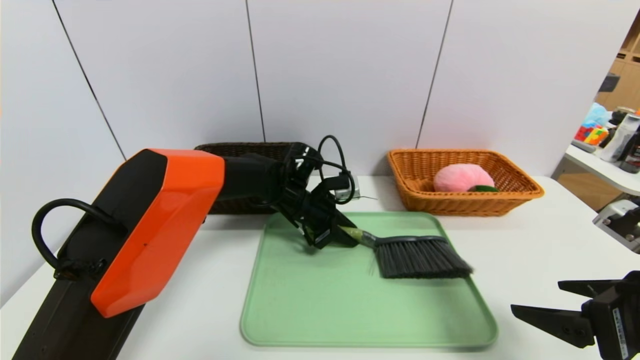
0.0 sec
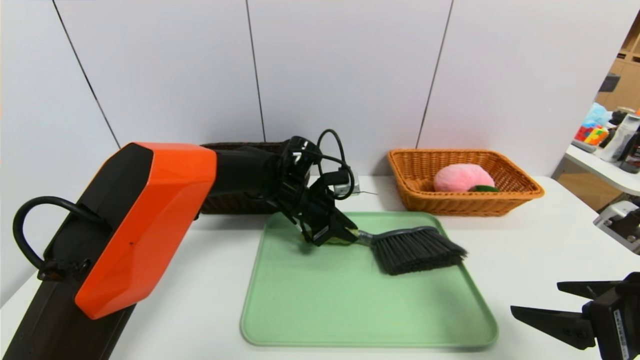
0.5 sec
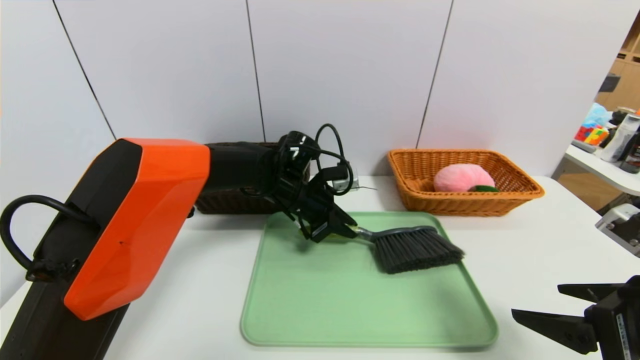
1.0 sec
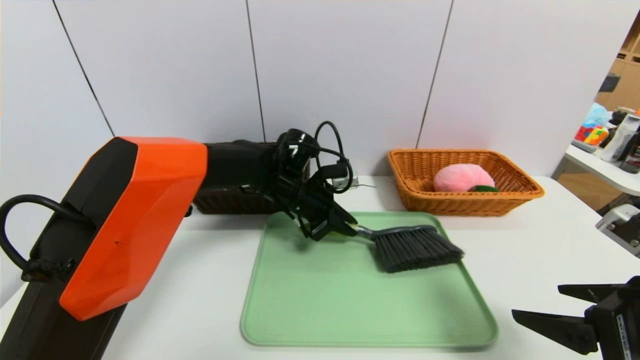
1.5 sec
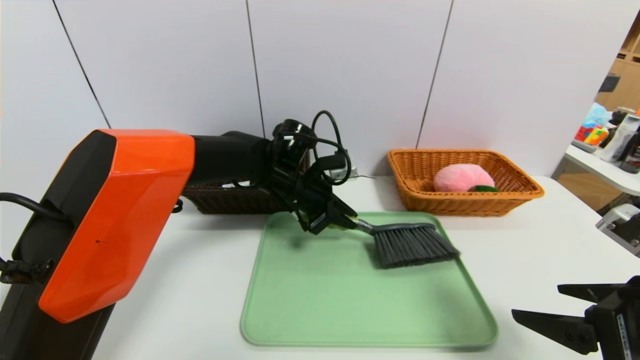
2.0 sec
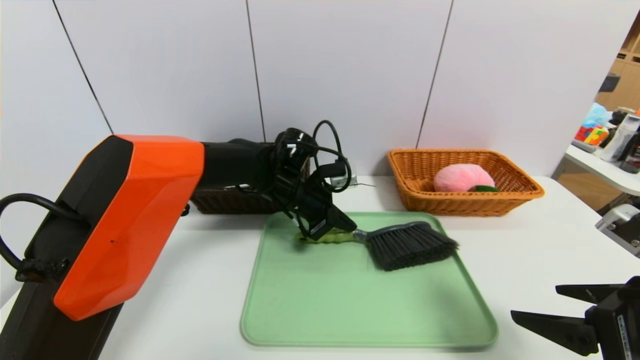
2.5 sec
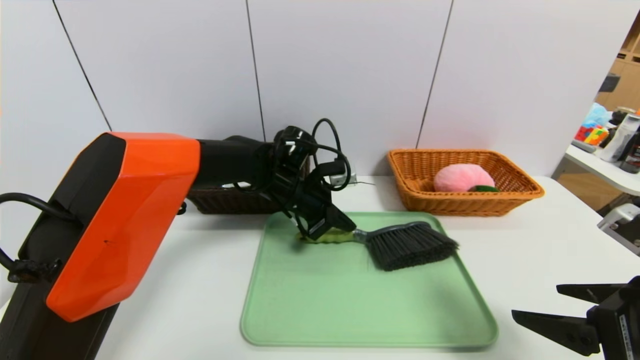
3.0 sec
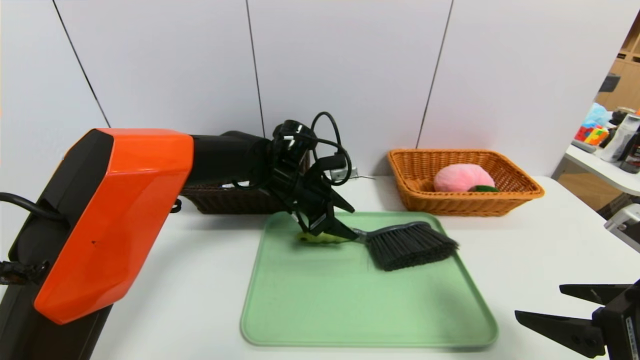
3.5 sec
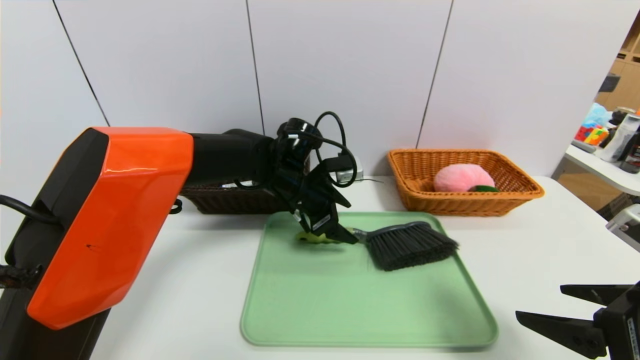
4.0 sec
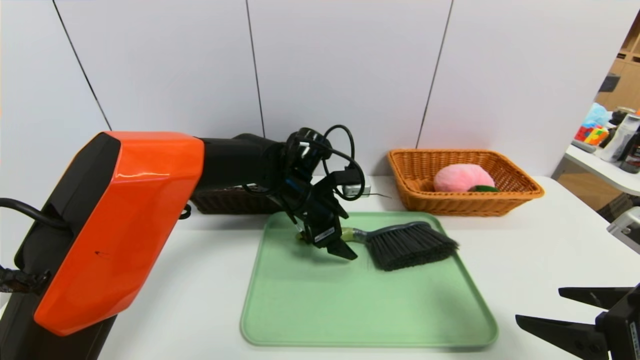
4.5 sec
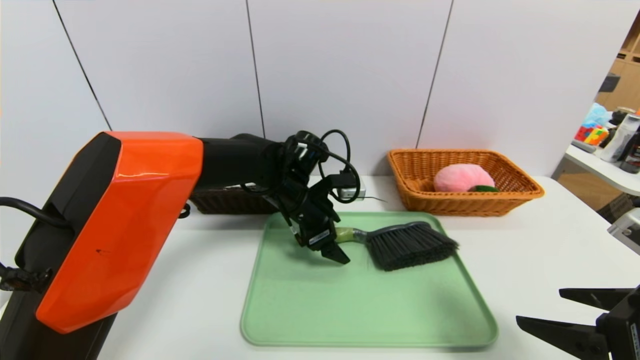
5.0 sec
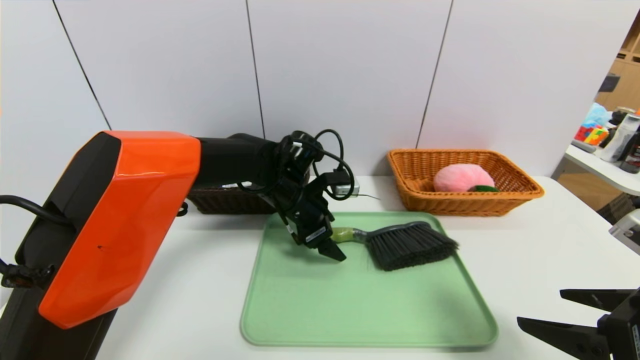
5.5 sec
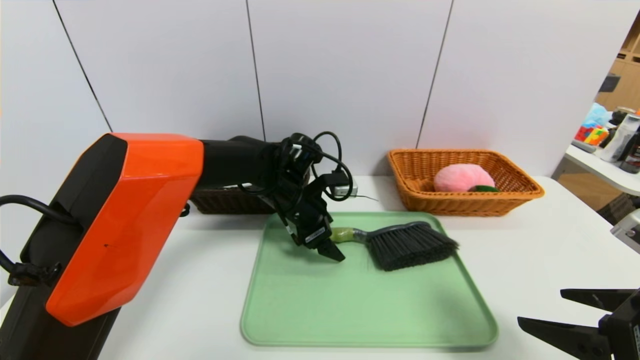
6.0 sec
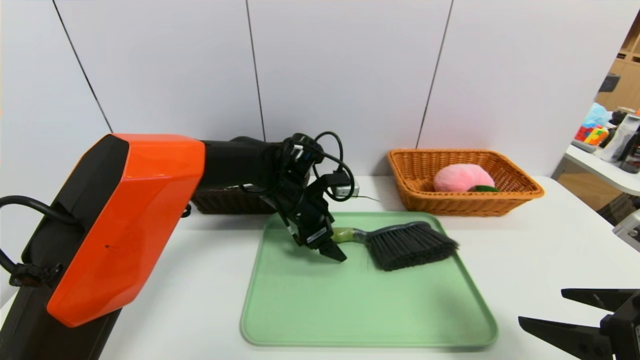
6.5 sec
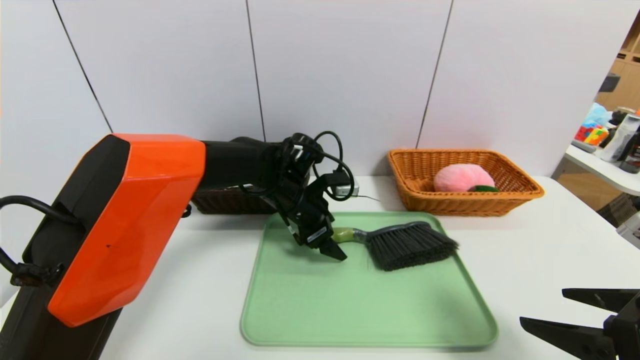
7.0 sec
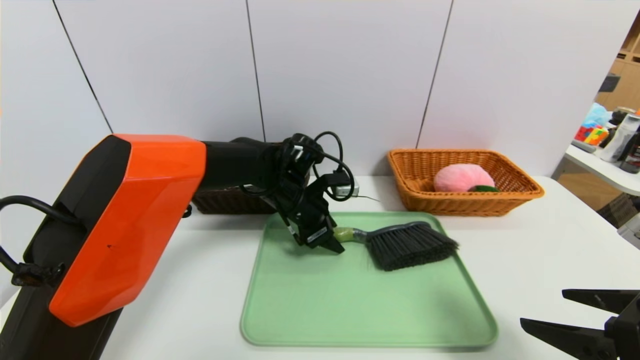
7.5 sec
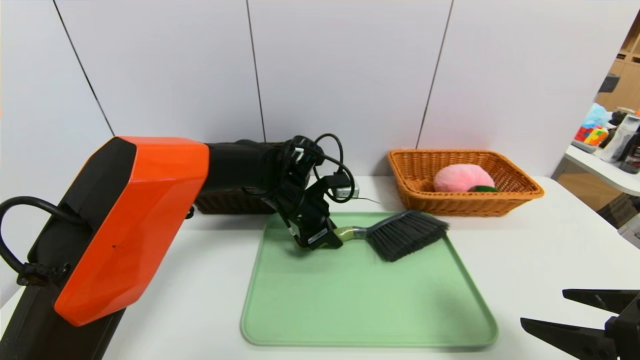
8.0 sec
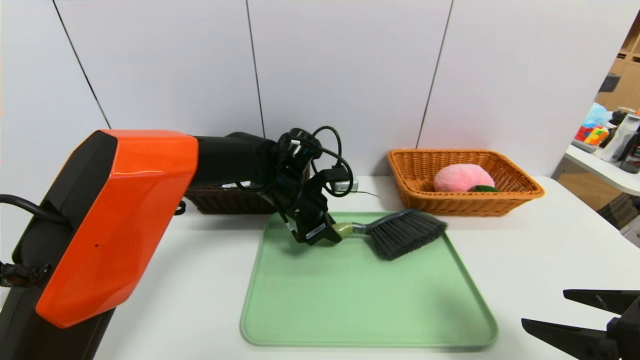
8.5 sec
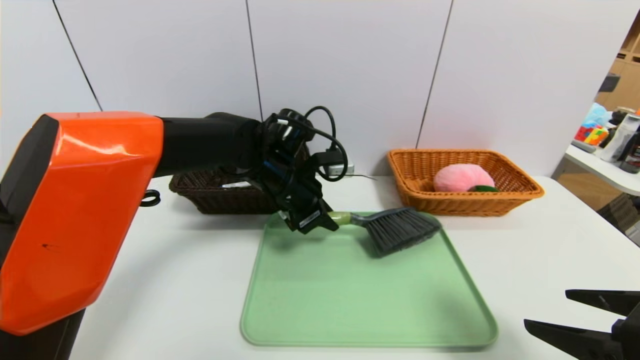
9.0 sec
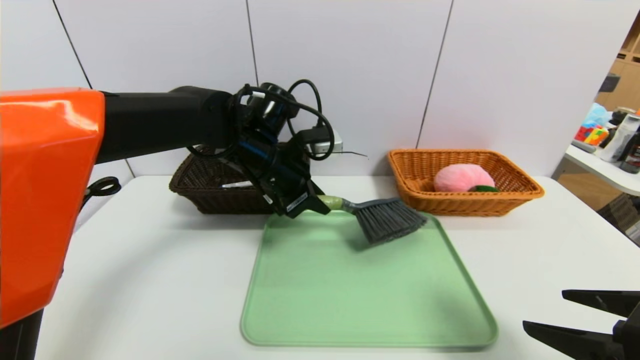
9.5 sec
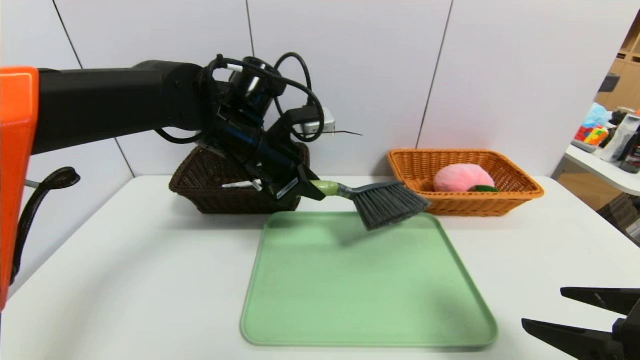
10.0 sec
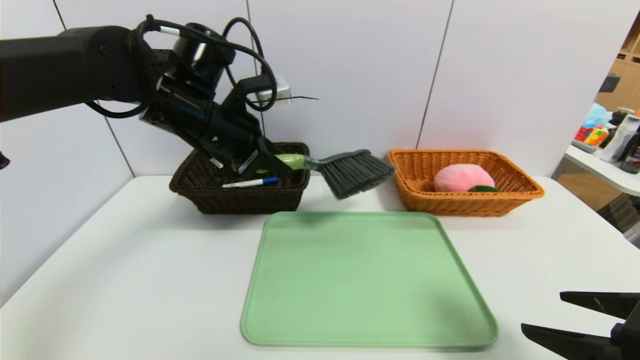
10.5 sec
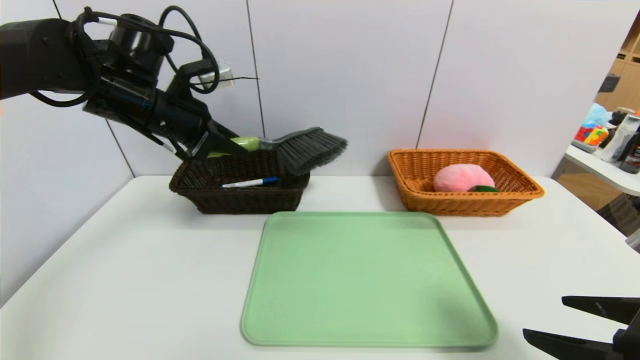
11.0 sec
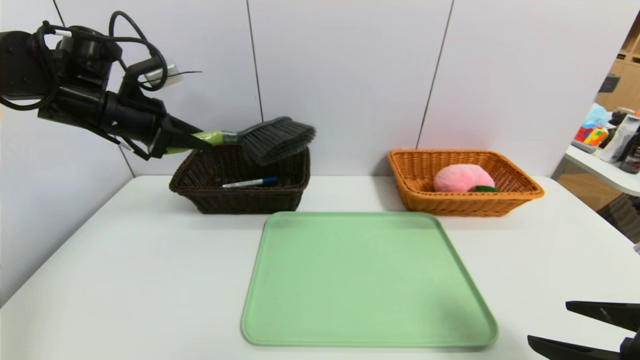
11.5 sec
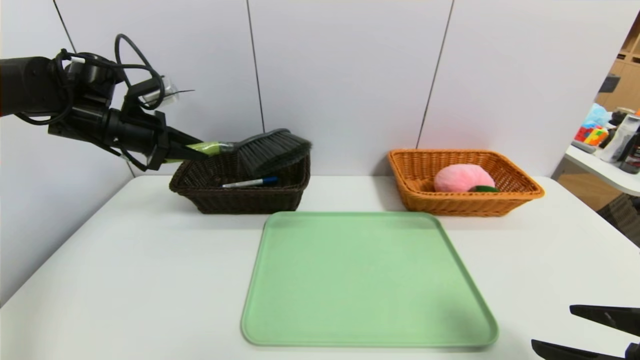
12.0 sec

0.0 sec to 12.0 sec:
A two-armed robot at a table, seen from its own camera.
Task of the whole recording: place the food in the right basket with the right gripper, and place the non food items in the left basket with the left gripper.
0.0 sec to 2.0 sec: The left gripper ends up approximately 5 cm from where it was.
2.0 sec to 4.0 sec: The left gripper opens its fingers.
4.0 sec to 6.0 sec: The grippers stay close to where they were, moving slightly.
6.0 sec to 8.0 sec: The left gripper closes its fingers.
8.0 sec to 10.0 sec: The left gripper goes approximately 15 cm upward and to the left.
10.0 sec to 12.0 sec: The left gripper goes approximately 20 cm to the left.

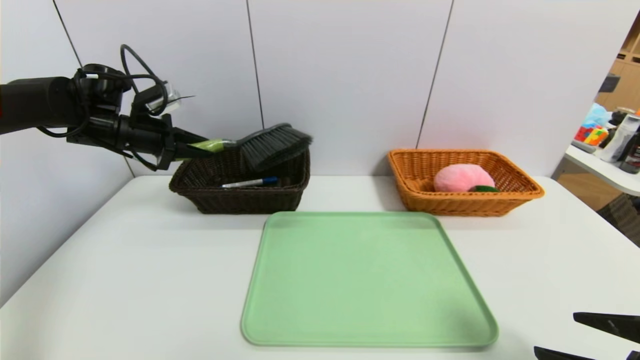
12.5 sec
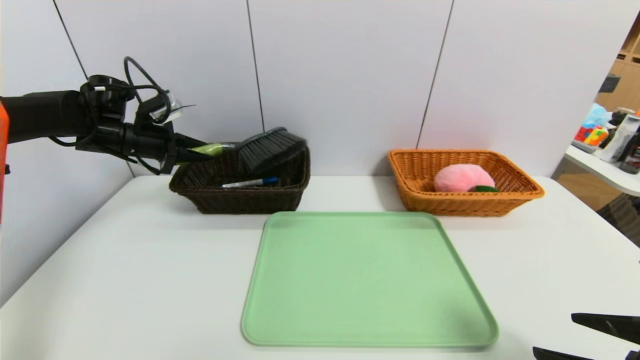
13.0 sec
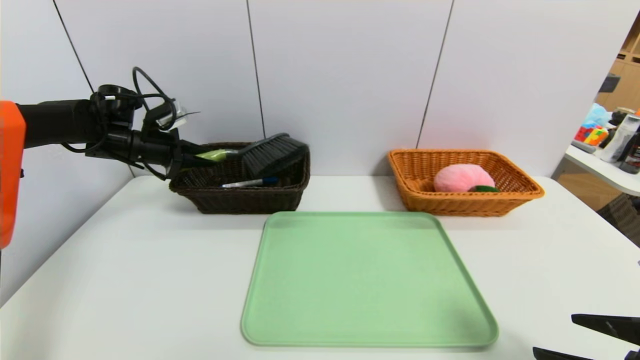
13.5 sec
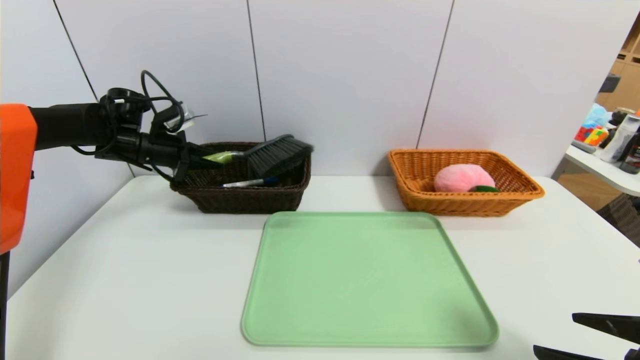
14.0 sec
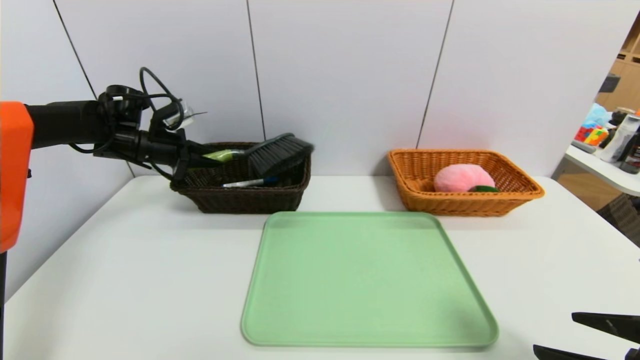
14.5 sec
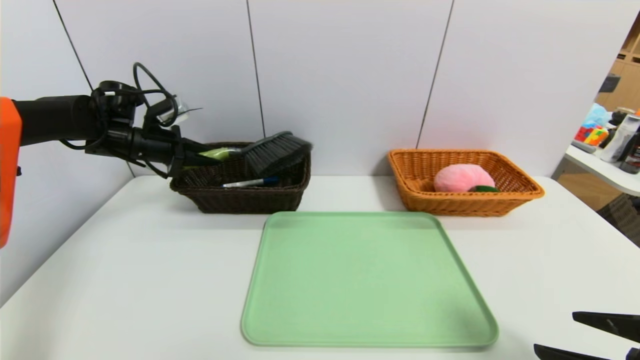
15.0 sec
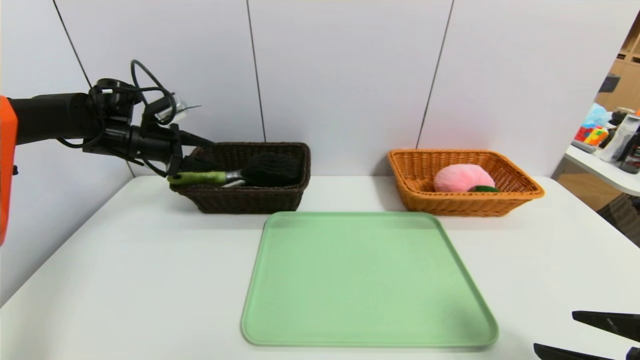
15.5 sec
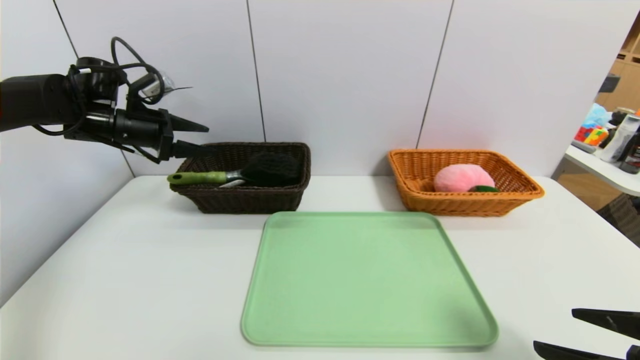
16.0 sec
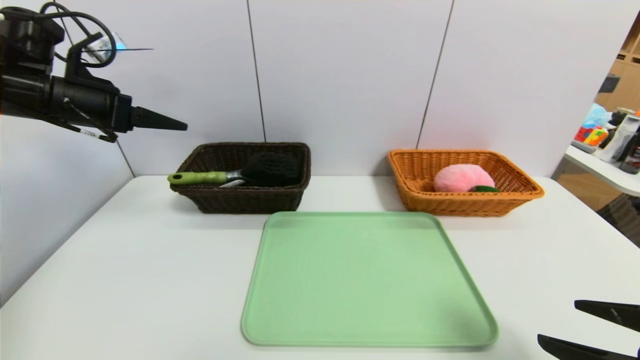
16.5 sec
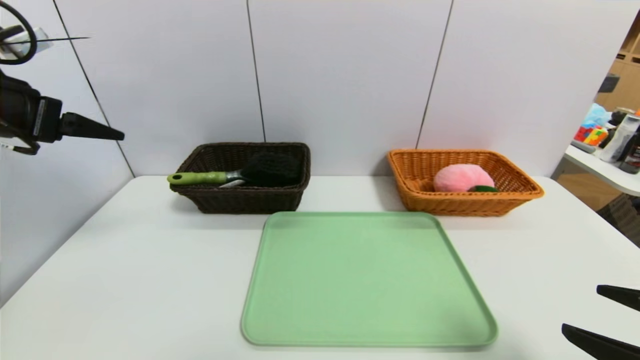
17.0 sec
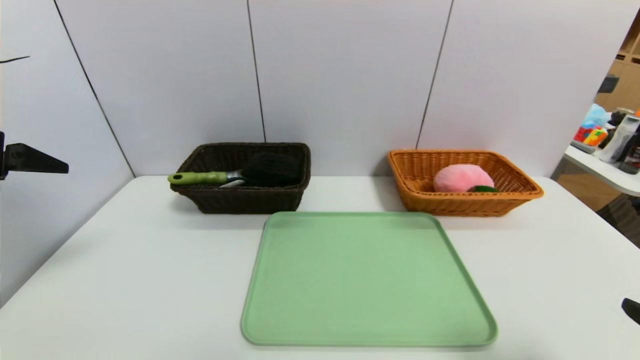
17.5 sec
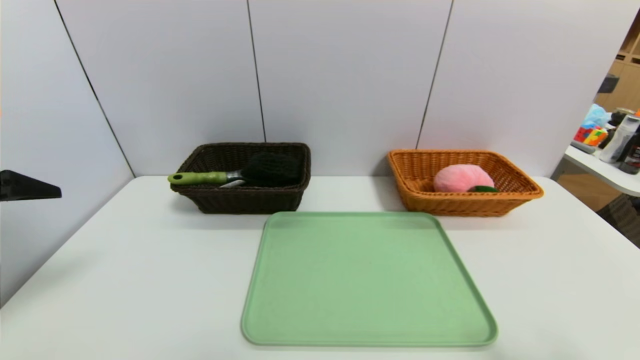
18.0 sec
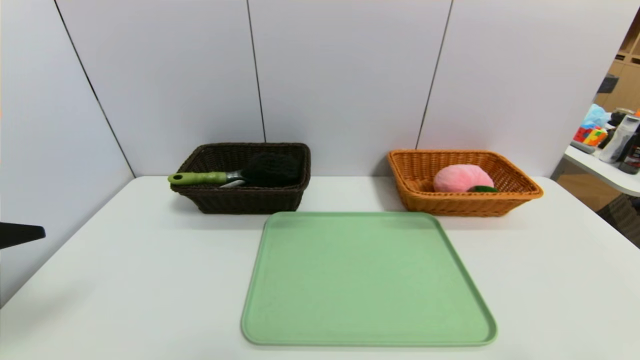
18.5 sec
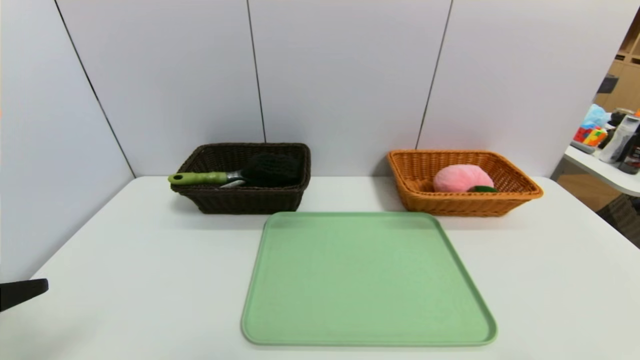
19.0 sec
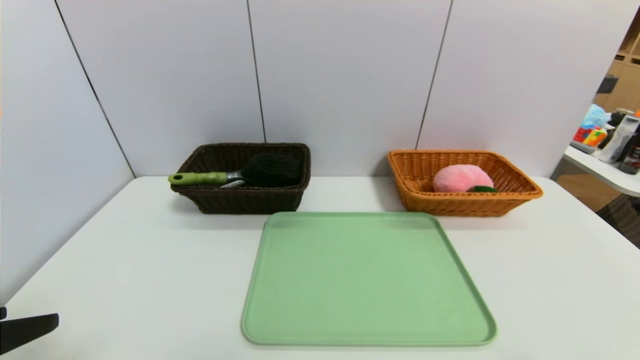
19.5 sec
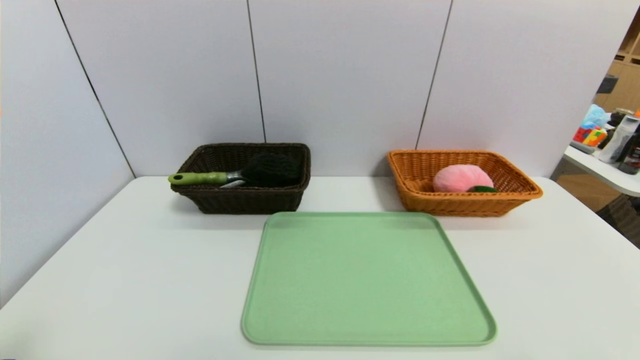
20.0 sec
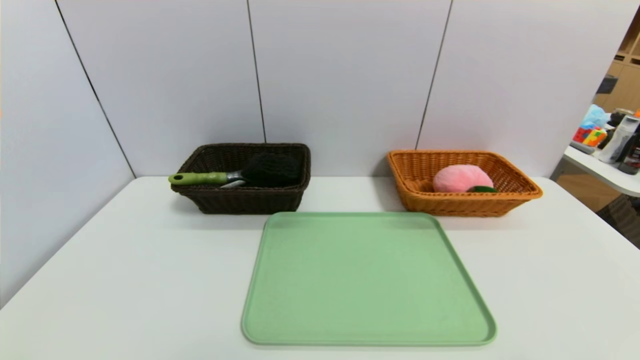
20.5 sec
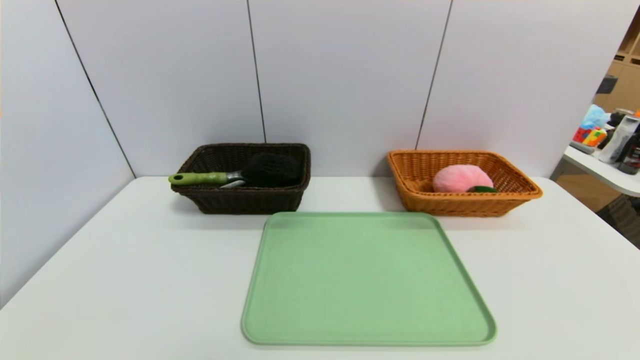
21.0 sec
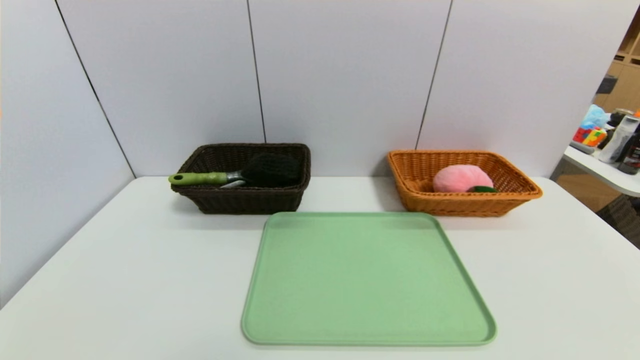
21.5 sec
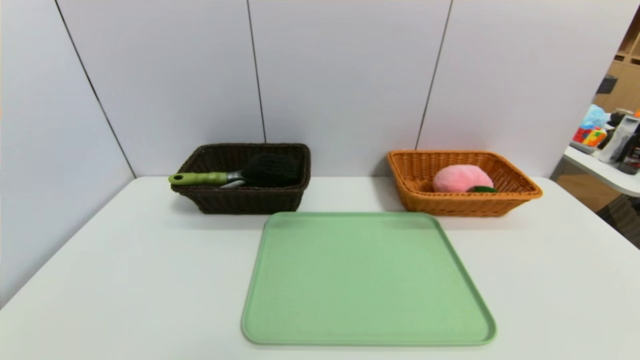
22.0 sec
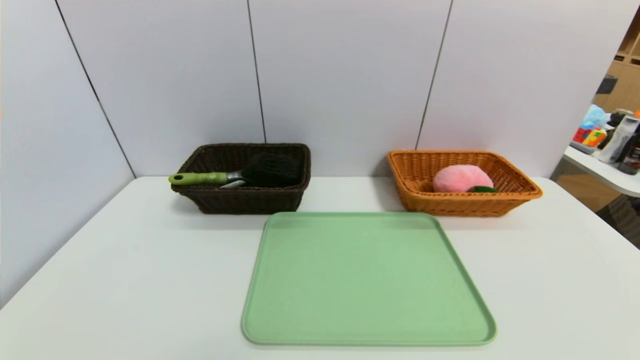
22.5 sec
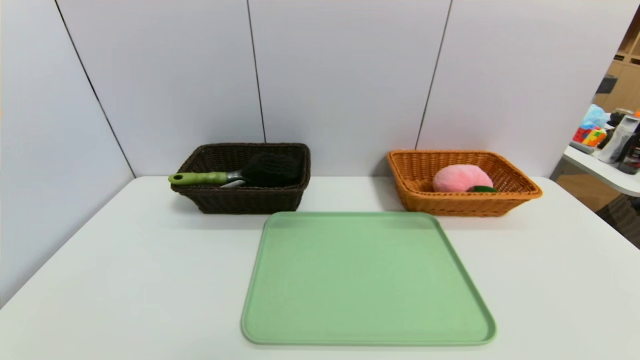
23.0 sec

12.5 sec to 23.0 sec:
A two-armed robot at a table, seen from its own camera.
Task of the whole recording: place the food in the right basket with the right gripper, and place the non food items in the left basket with the left gripper.
Step, 12.5 sec to 16.0 sec: Grasp the brush and put it in the left basket.
12.5 sec to 14.5 sec: The grippers move only a little.
14.5 sec to 16.5 sec: The left gripper heads upward and backward, covering approximately 15 cm, and opens its fingers.
16.5 sec to 19.0 sec: The right gripper moves backward, about 10 cm; the left gripper moves backward, about 30 cm.
19.0 sec to 21.0 sec: The left gripper goes some 15 cm downward and backward.
